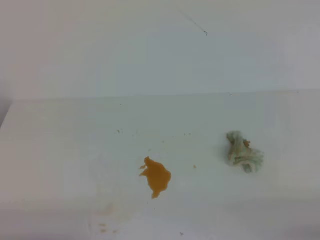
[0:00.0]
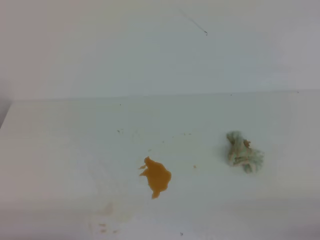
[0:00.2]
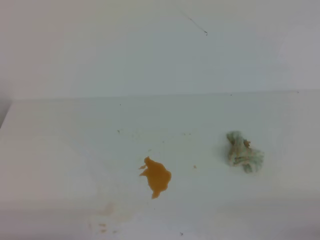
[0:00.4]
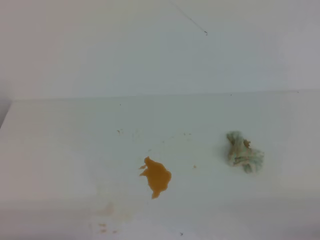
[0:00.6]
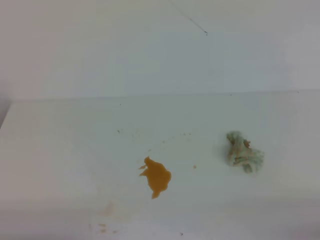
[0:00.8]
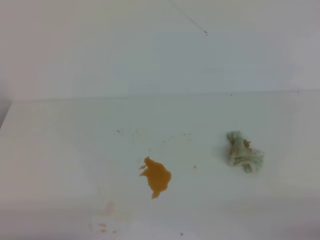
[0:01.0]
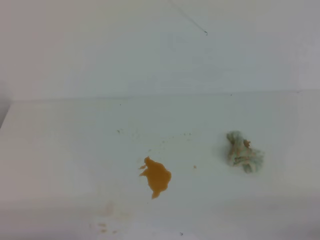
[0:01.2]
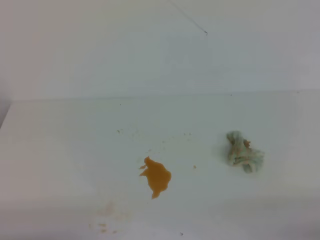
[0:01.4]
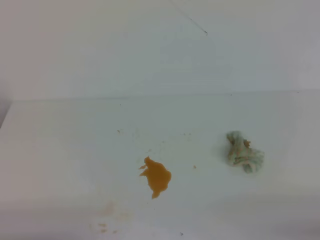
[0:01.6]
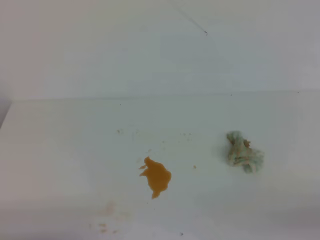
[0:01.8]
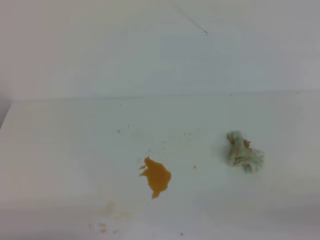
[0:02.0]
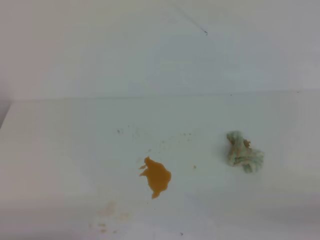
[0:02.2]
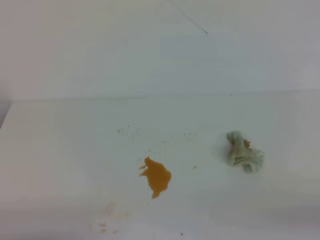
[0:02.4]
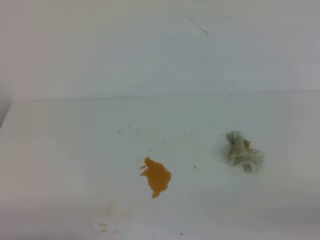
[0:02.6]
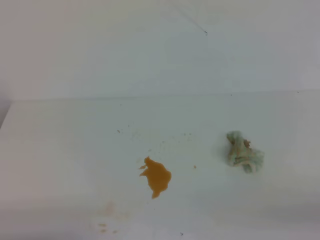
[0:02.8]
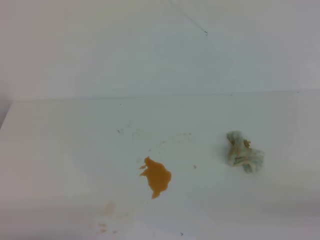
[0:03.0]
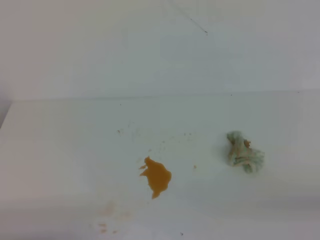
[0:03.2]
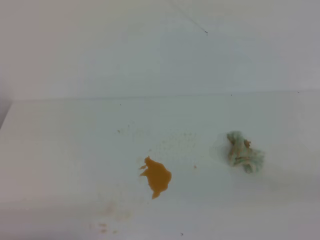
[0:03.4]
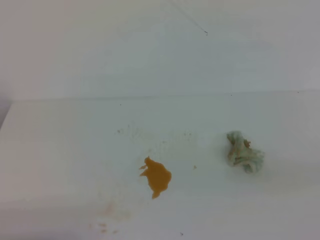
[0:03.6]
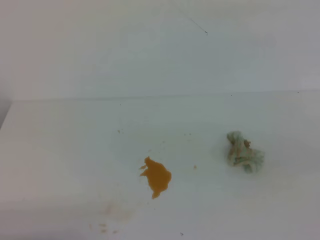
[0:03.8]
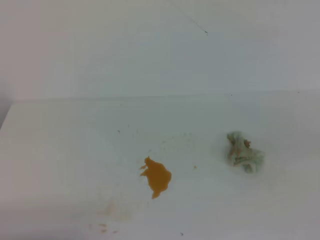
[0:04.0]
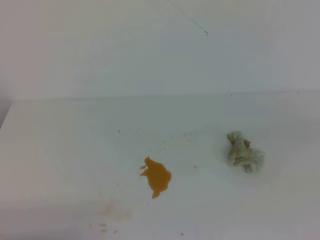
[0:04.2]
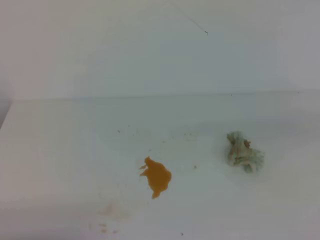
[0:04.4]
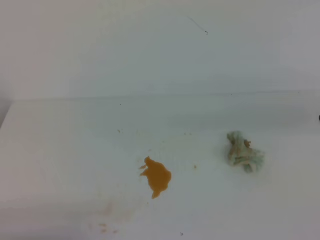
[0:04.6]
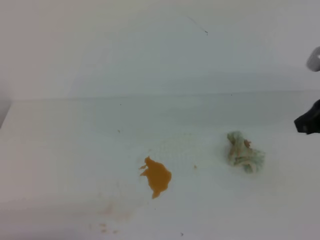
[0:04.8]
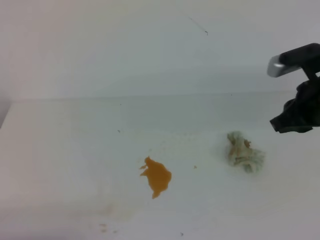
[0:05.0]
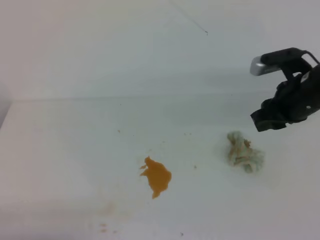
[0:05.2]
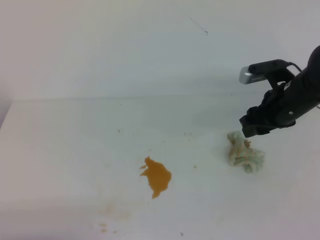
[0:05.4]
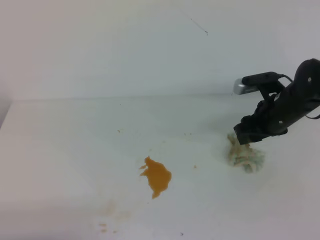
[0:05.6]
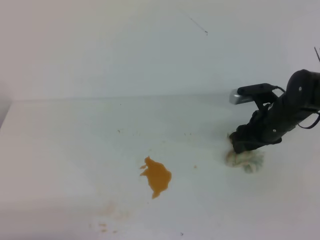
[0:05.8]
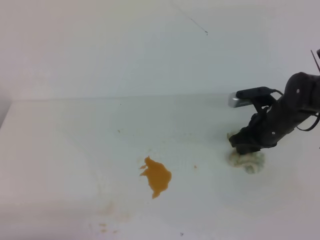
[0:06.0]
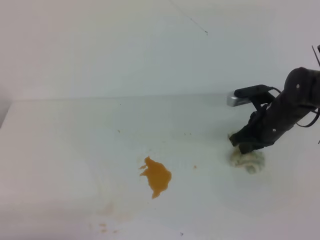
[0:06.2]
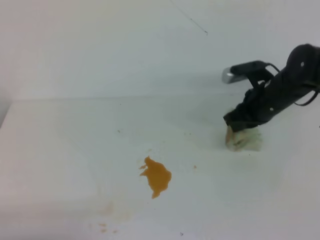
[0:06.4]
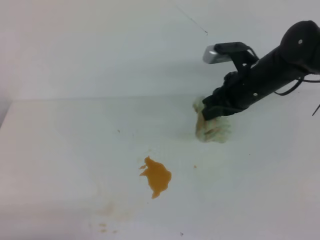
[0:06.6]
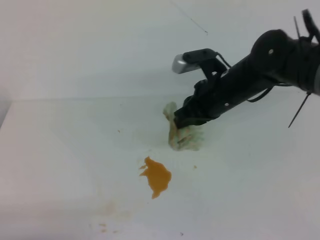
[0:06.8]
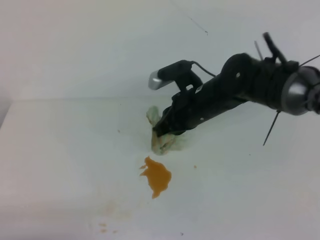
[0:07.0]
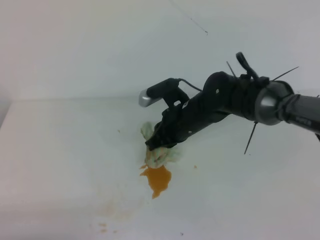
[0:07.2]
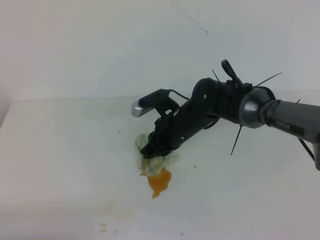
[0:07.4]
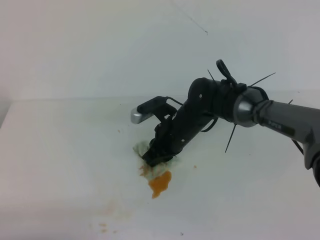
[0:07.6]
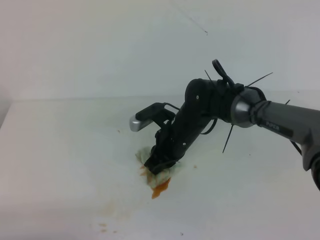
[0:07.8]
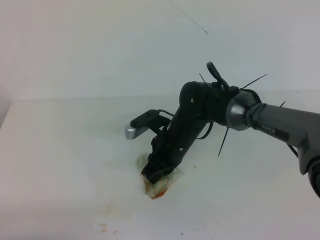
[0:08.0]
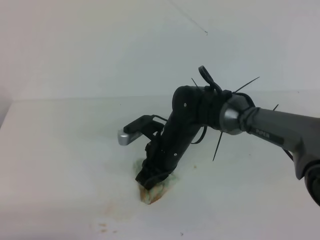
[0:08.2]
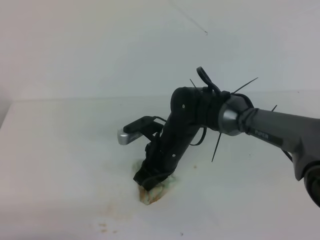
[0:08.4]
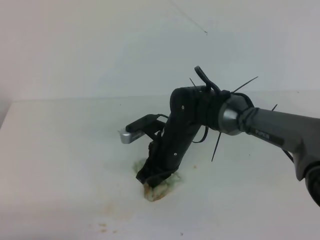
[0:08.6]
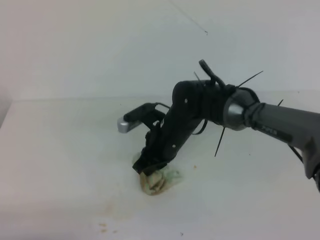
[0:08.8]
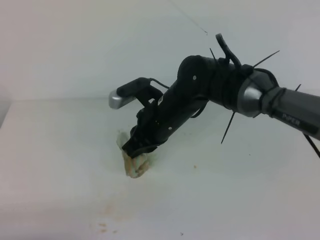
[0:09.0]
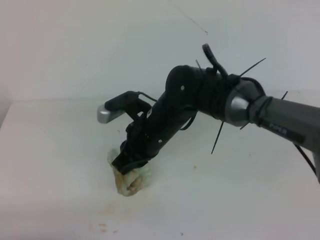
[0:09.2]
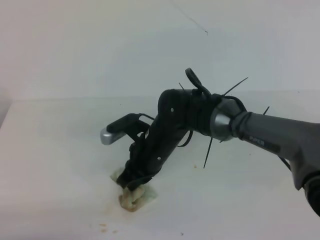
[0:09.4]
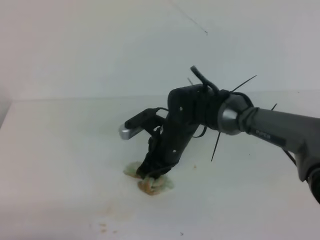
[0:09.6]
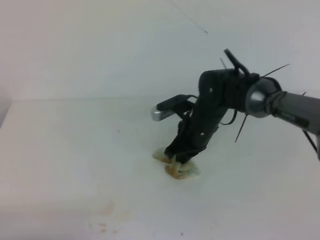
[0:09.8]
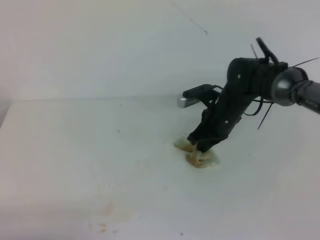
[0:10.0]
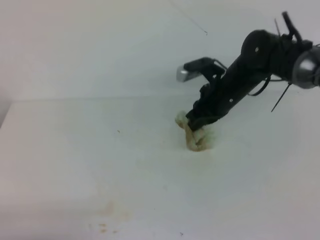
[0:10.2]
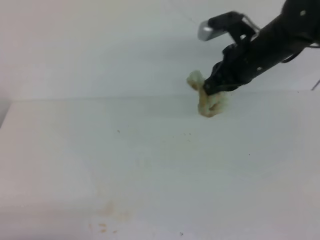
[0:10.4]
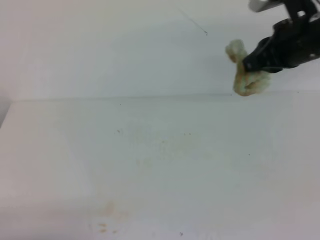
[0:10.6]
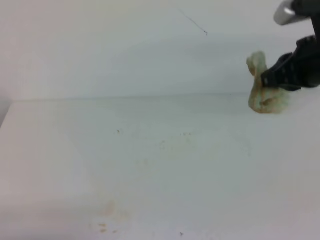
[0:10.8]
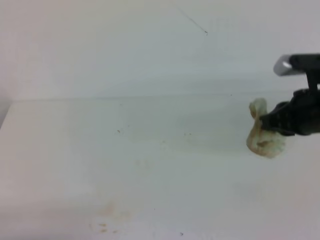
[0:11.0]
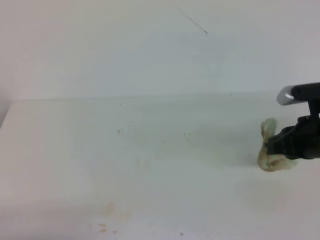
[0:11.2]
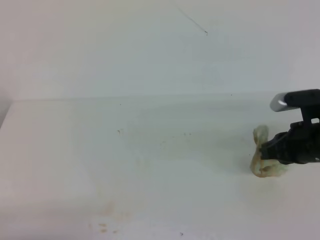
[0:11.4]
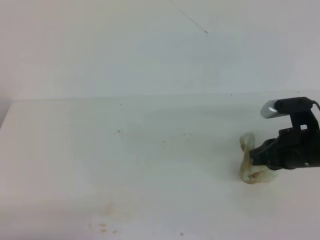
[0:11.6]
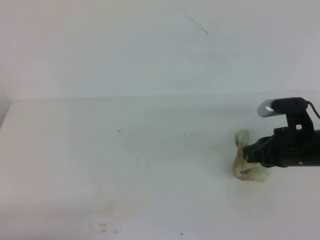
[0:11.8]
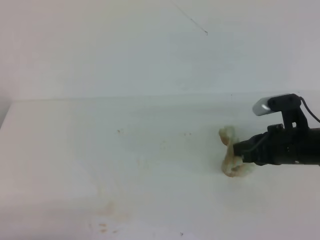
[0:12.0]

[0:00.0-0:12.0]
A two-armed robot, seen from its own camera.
0:04.4 to 0:06.0: The right gripper moves forward, downward and to the left, about 30 cm, and opens its fingers.
0:06.0 to 0:07.6: The right gripper shifts roughly 20 cm to the left, and closes its fingers.
0:07.6 to 0:09.0: The right gripper shifts about 5 cm upward.
0:09.0 to 0:10.4: The right gripper is displaced to the right and upward by about 15 cm.
0:10.4 to 0:12.0: The right gripper is displaced backward, downward and to the right by some 15 cm.

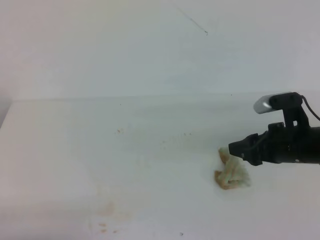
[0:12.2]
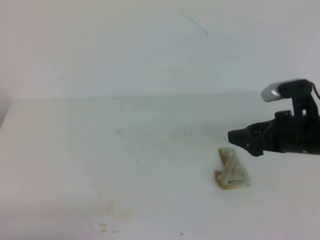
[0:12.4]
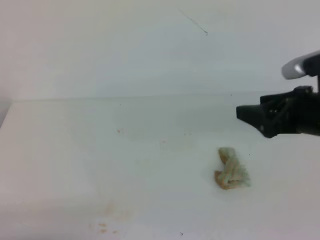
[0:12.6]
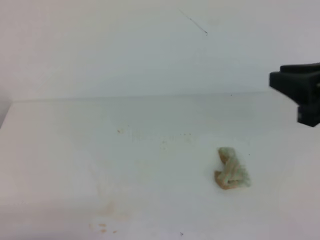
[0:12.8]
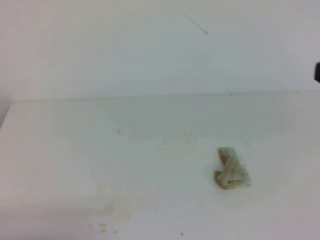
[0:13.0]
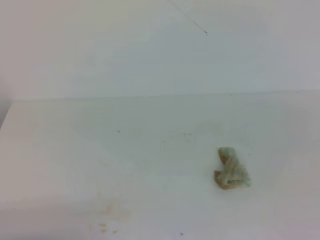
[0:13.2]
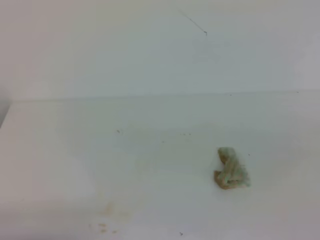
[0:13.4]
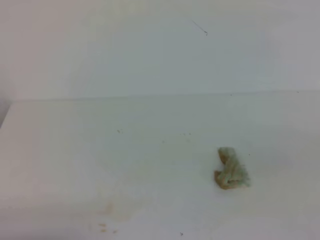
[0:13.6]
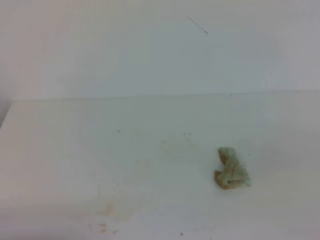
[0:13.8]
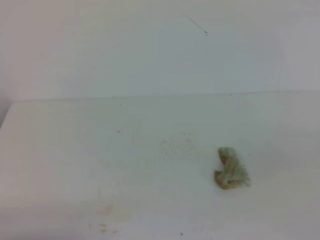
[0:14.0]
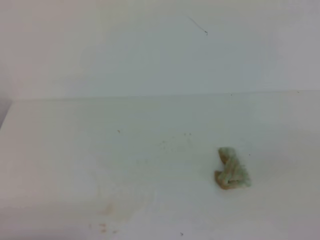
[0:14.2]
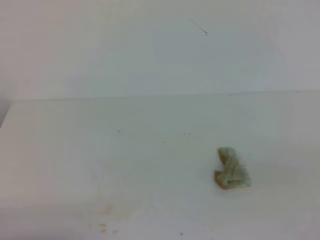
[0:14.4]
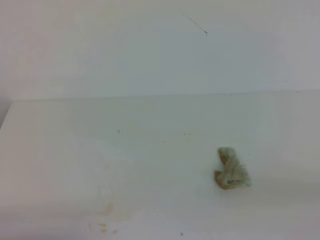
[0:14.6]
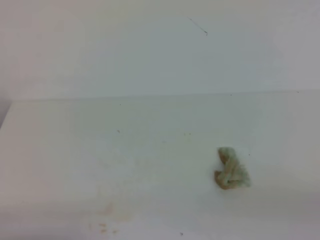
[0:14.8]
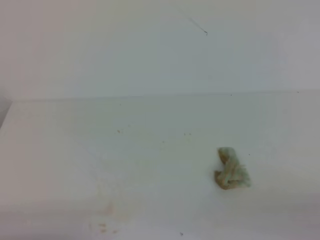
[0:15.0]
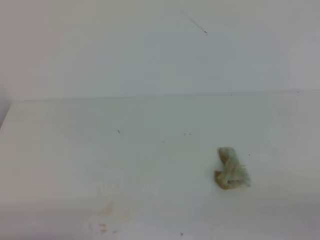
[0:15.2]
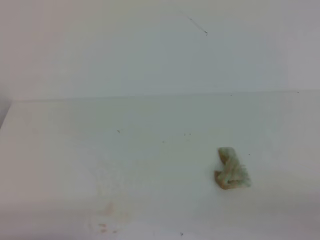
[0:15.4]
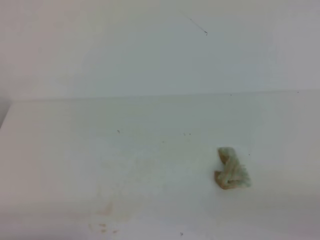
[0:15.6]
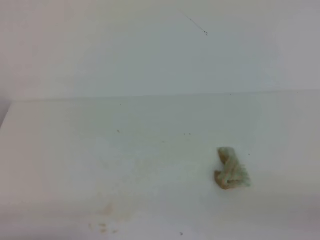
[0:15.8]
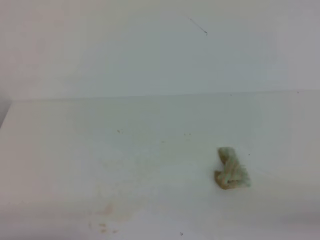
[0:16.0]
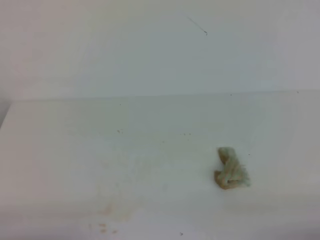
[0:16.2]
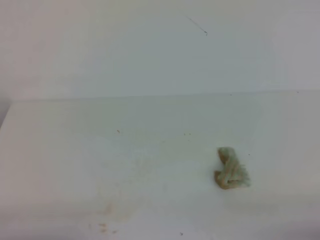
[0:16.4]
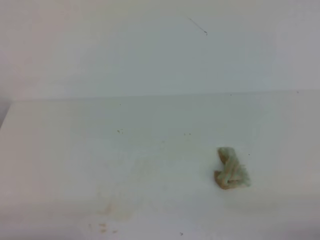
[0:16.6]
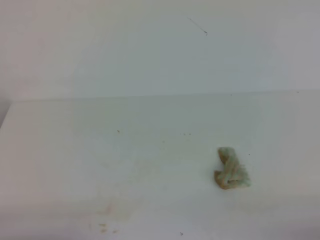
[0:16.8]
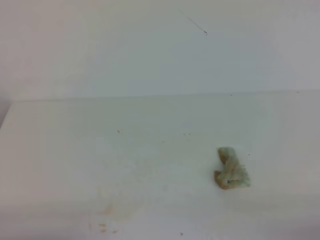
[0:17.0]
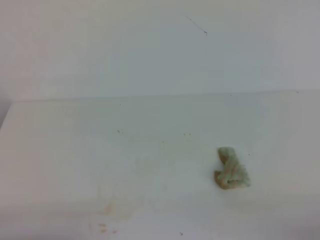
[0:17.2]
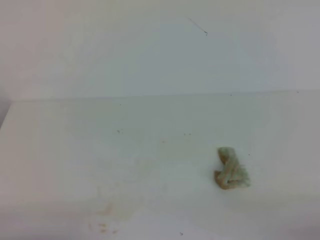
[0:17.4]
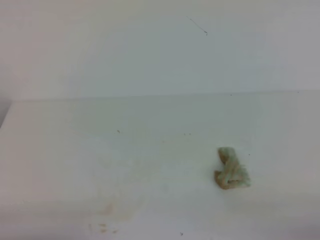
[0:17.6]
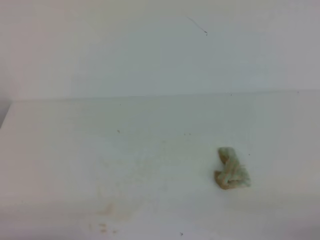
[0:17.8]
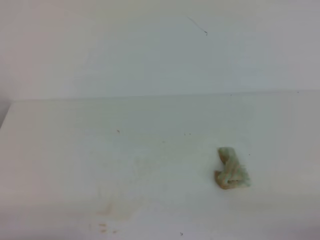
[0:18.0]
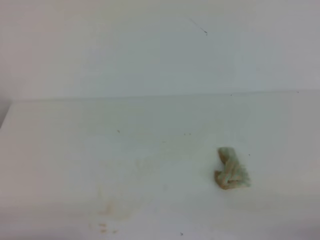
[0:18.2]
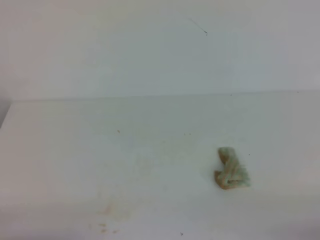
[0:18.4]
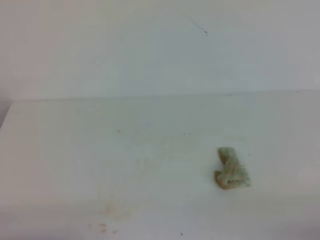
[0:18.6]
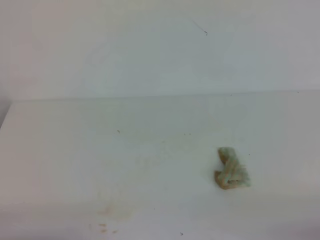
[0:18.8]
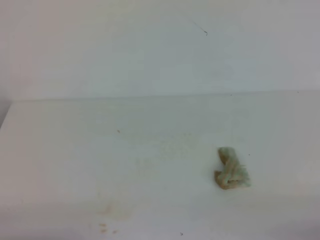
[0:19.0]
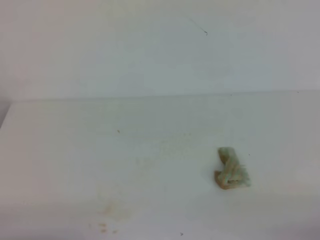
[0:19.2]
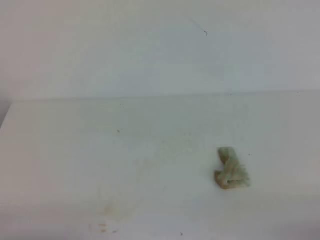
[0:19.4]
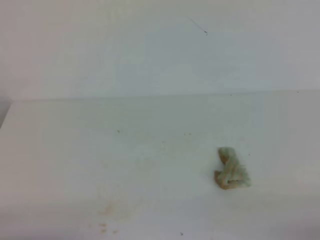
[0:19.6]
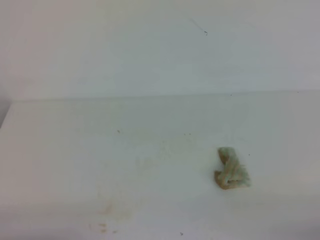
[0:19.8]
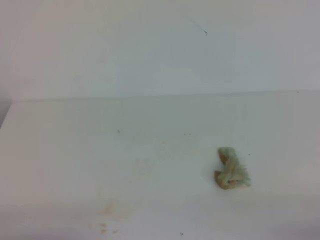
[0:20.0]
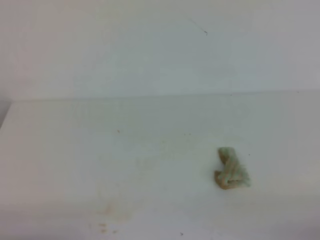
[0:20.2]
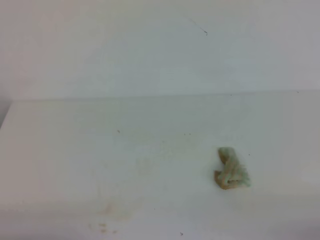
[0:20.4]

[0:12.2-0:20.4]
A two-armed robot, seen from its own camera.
0:12.2 to 0:13.8: The right gripper is displaced backward, upward and to the right by roughly 25 cm, and closes its fingers.
0:17.2 to 0:20.4: Both grippers stay put.
